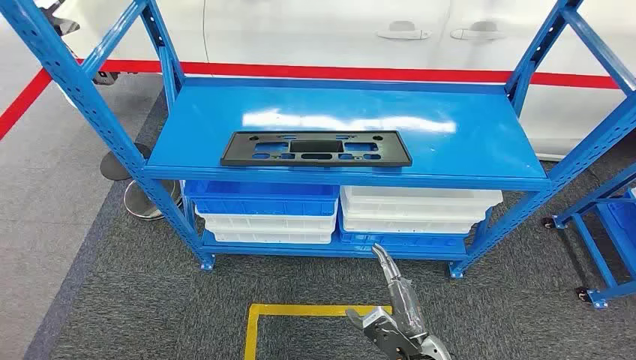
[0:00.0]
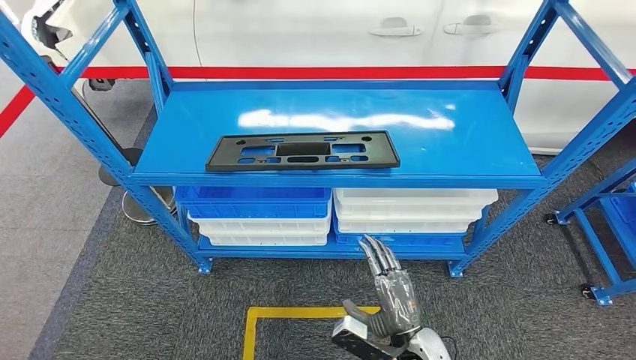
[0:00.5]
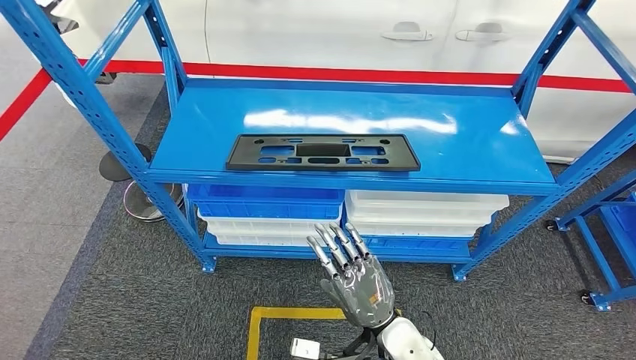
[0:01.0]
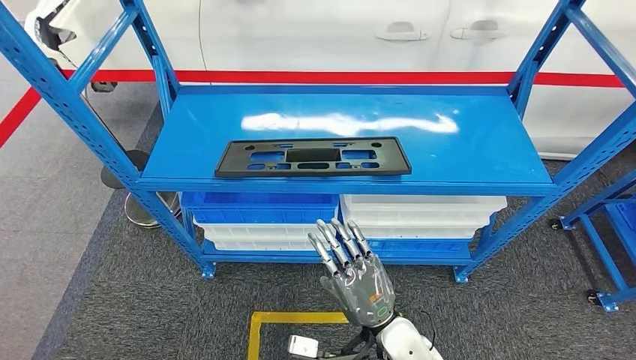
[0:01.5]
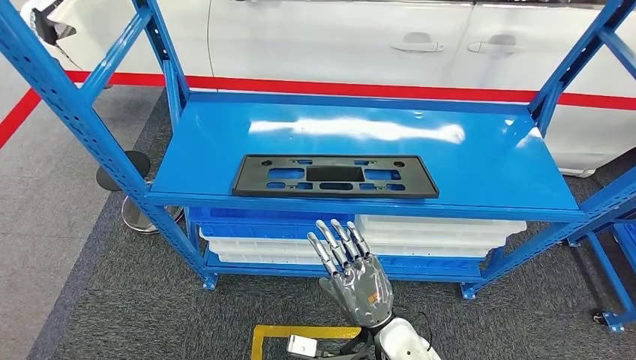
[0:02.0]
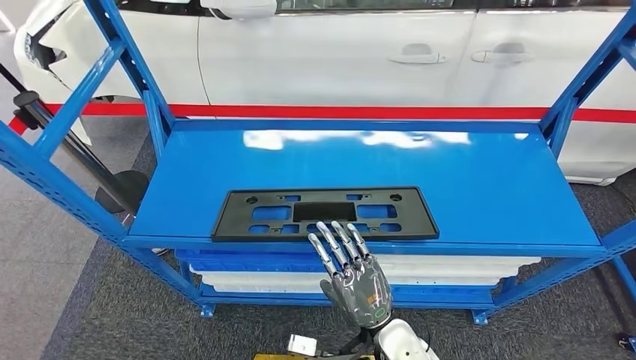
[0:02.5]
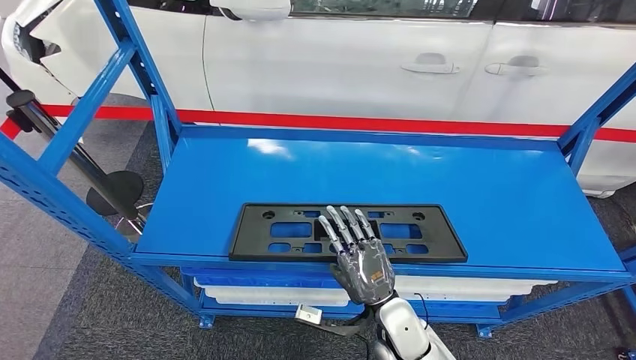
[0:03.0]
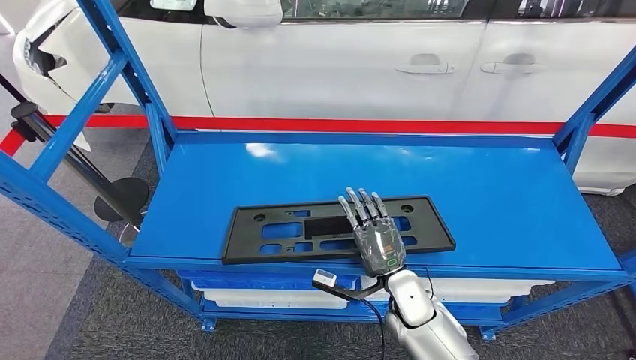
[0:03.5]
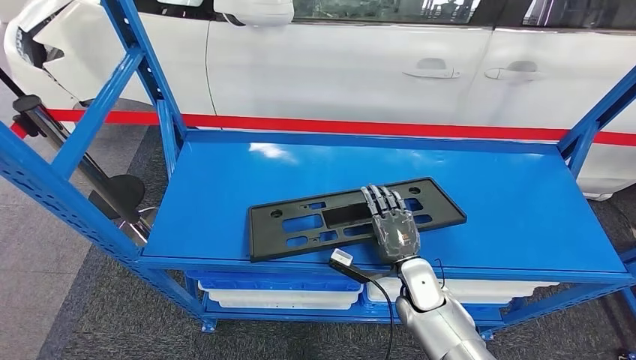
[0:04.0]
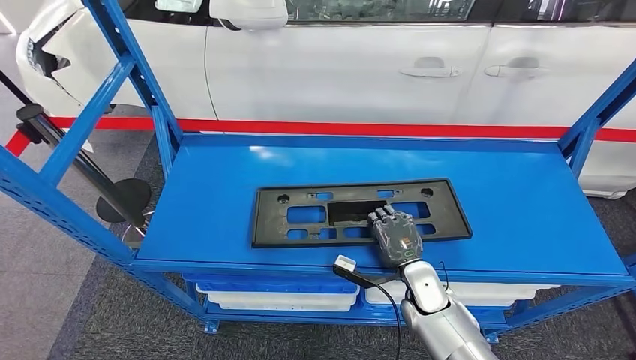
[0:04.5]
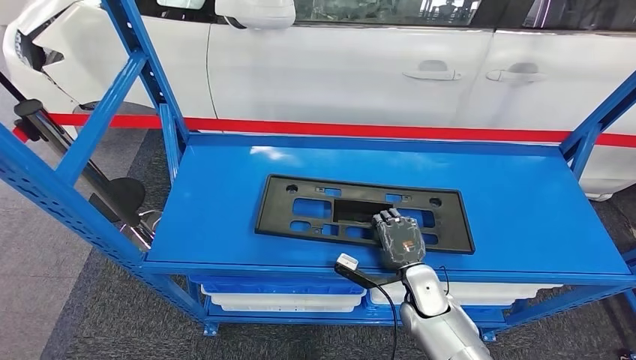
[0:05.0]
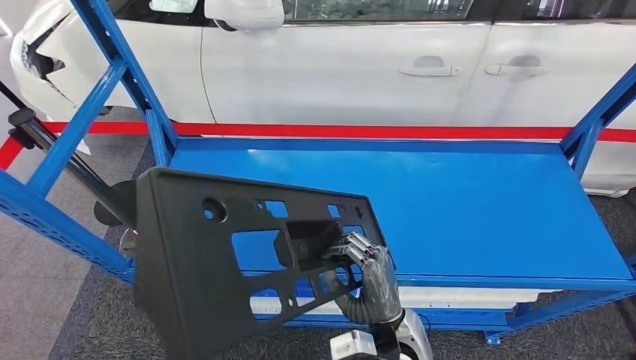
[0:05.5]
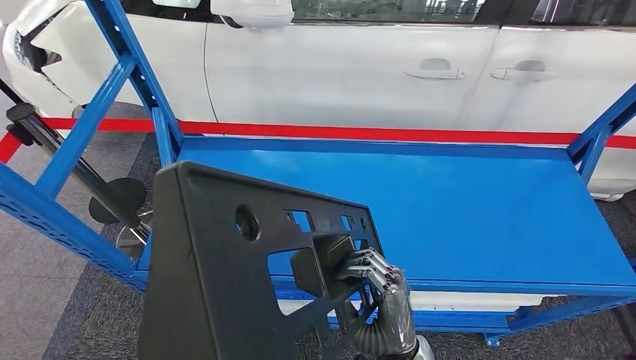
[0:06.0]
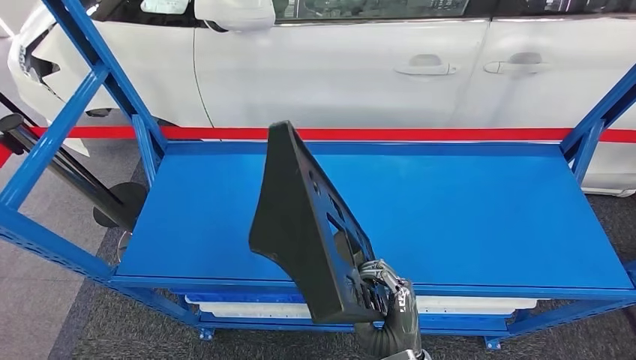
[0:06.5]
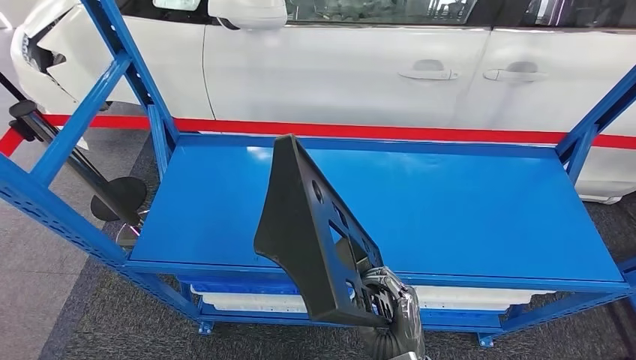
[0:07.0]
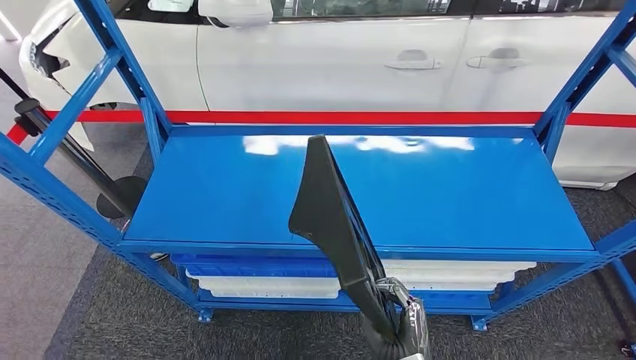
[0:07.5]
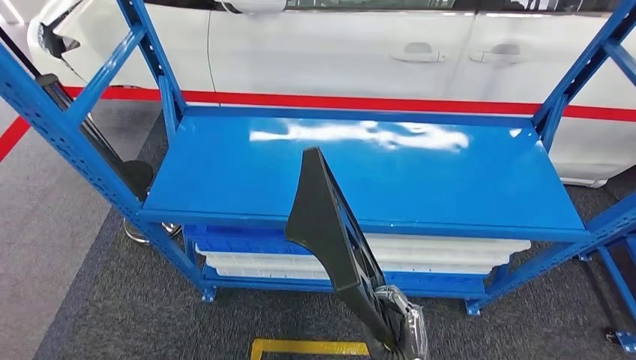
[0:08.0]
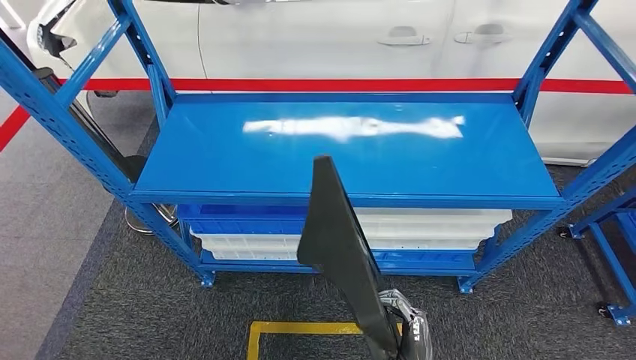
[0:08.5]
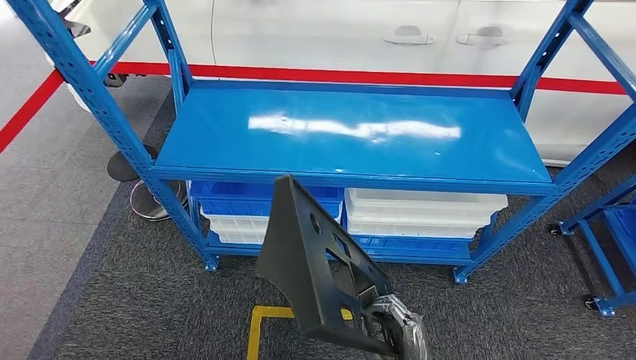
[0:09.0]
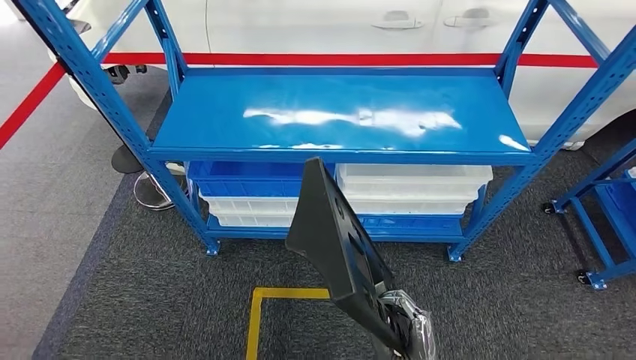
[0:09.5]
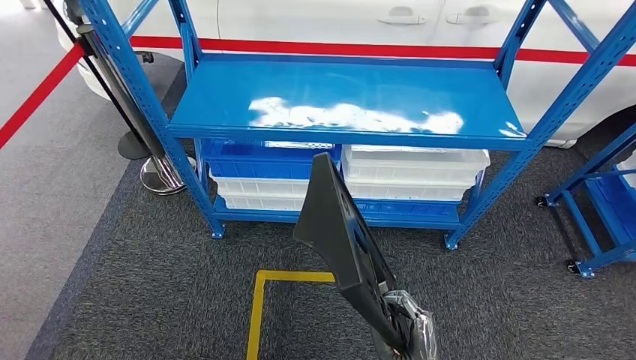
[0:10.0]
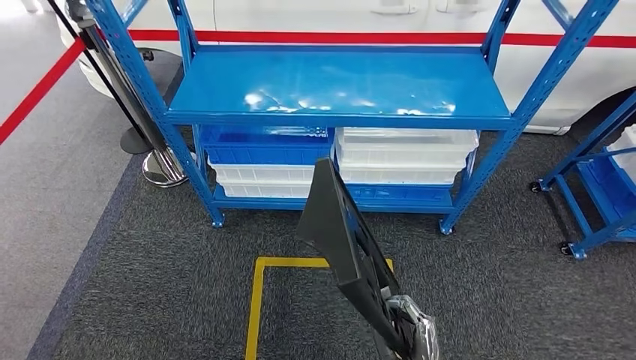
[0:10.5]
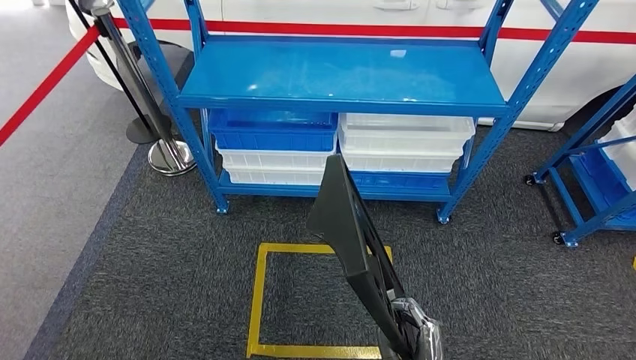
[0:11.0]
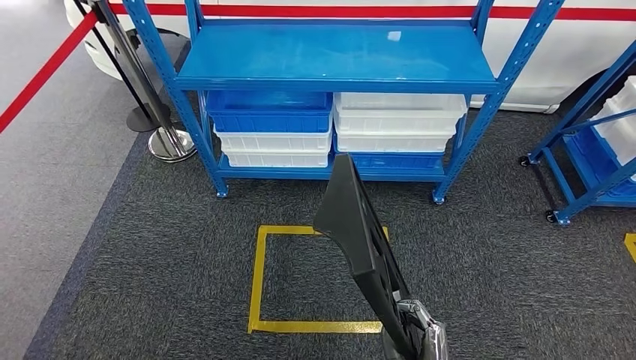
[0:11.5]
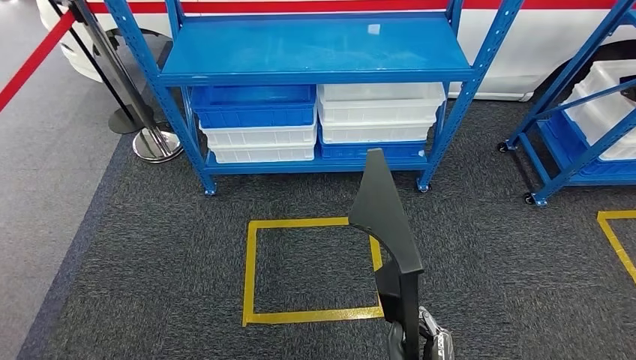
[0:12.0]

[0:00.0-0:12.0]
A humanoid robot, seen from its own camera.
Step, 0:00.0 to 0:08.5: Pick up the large material from the shelf.

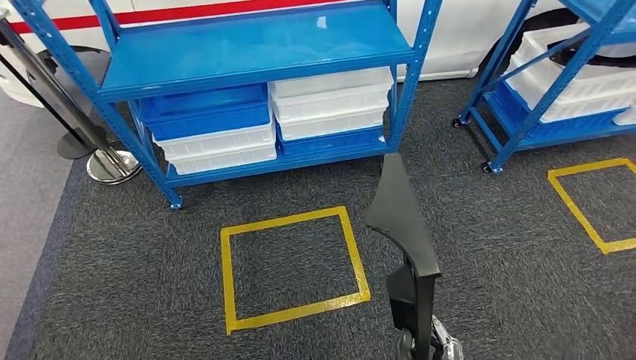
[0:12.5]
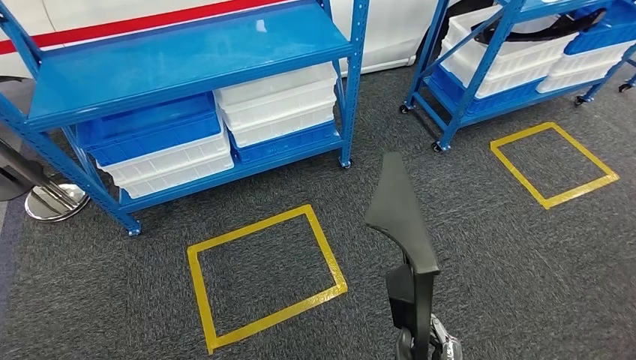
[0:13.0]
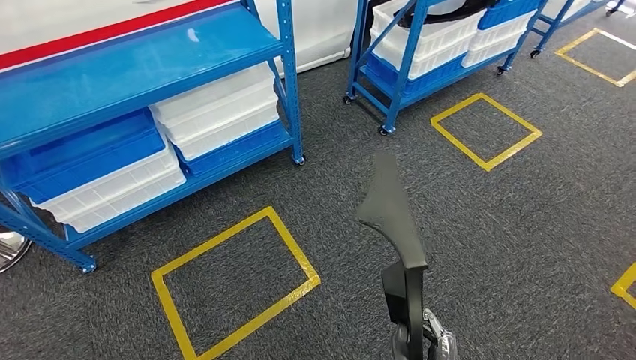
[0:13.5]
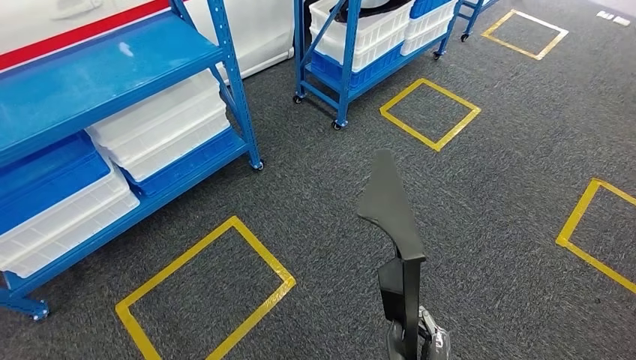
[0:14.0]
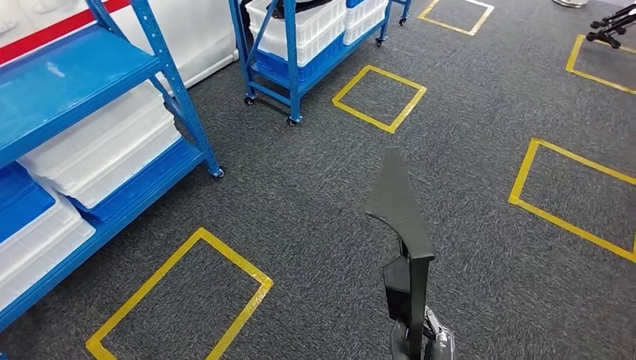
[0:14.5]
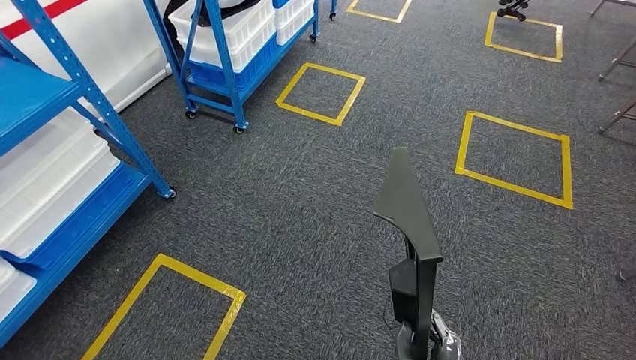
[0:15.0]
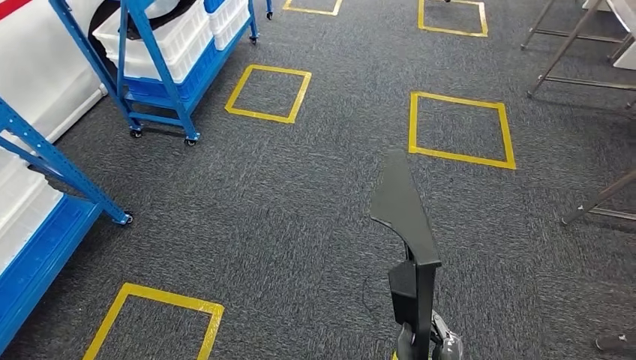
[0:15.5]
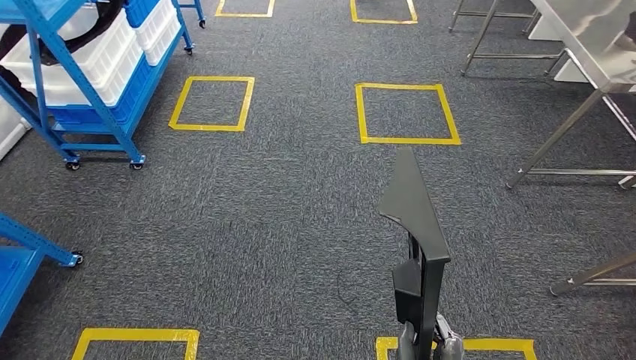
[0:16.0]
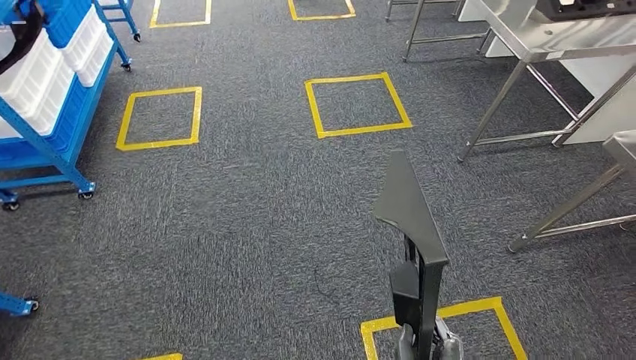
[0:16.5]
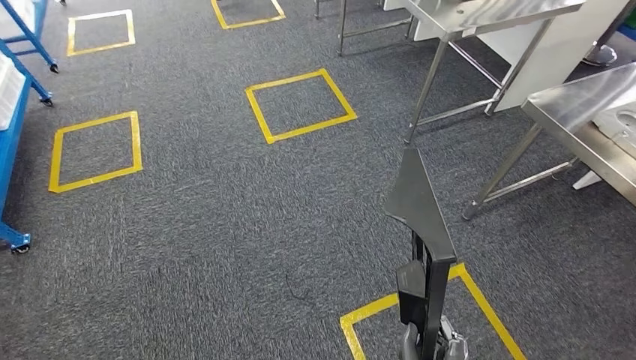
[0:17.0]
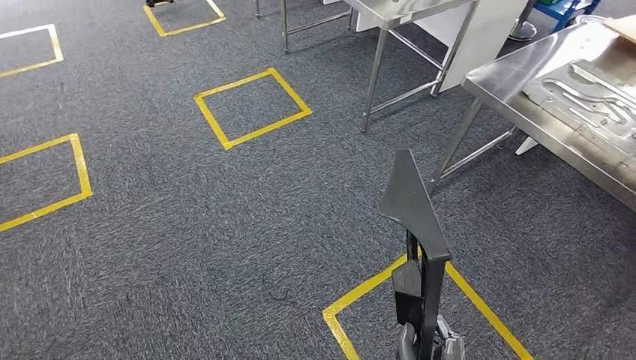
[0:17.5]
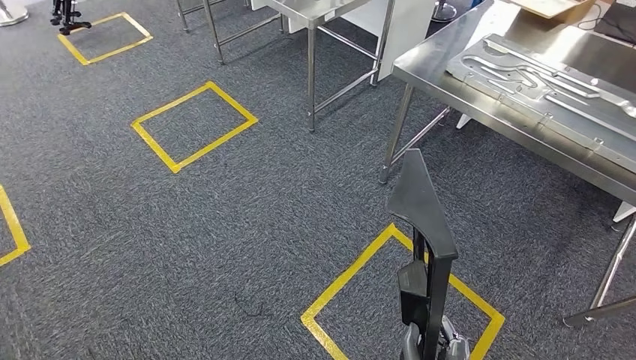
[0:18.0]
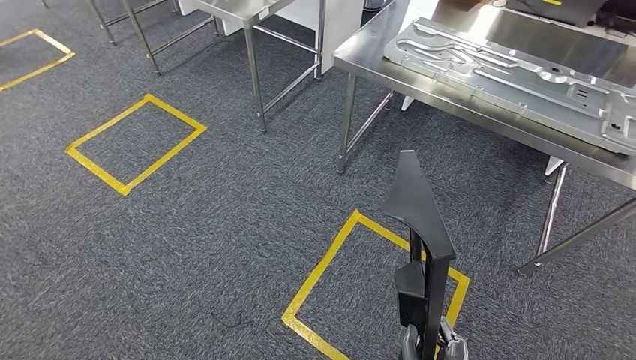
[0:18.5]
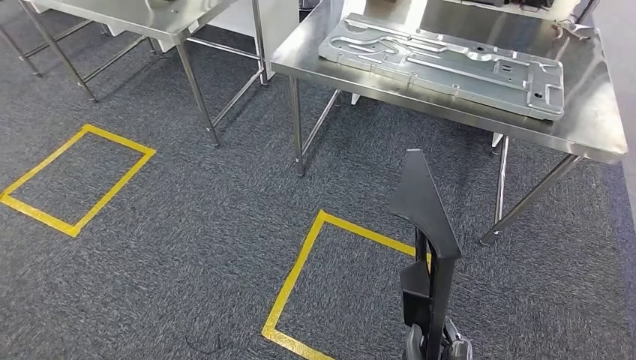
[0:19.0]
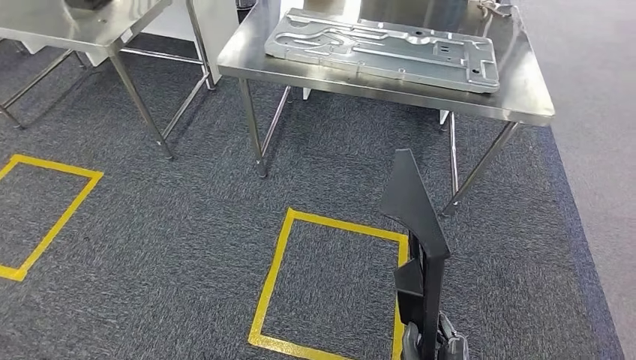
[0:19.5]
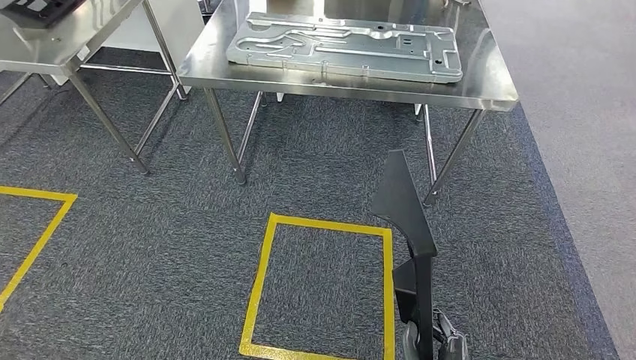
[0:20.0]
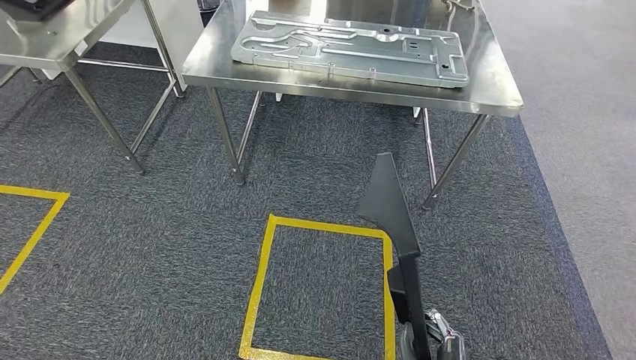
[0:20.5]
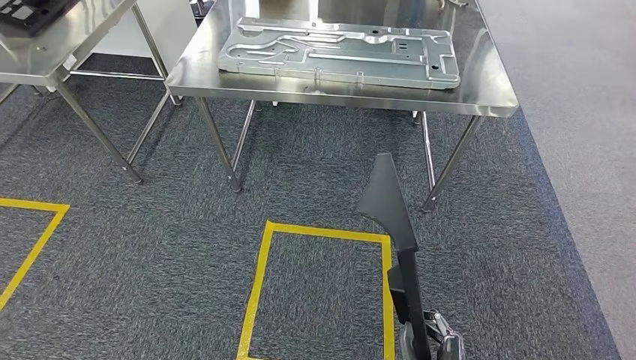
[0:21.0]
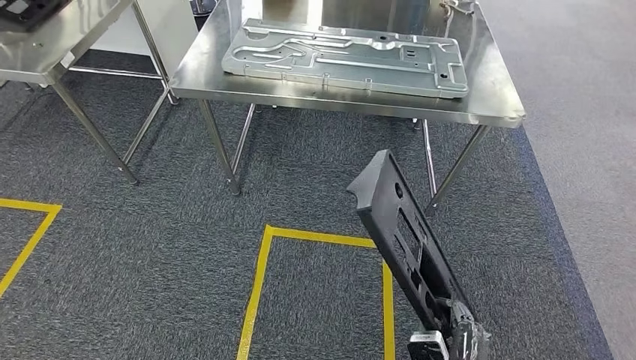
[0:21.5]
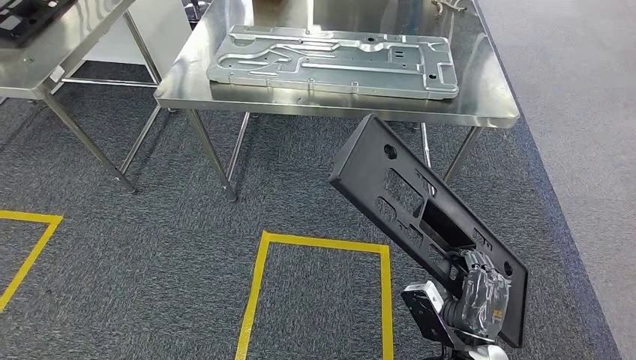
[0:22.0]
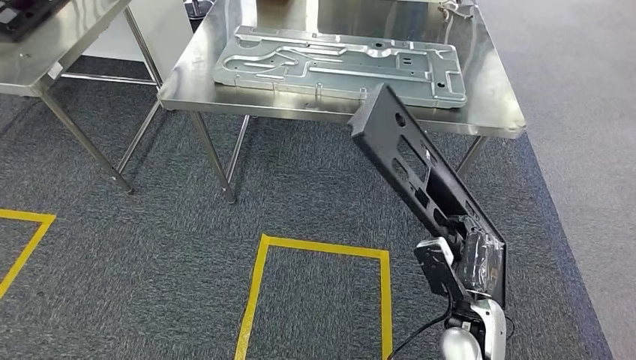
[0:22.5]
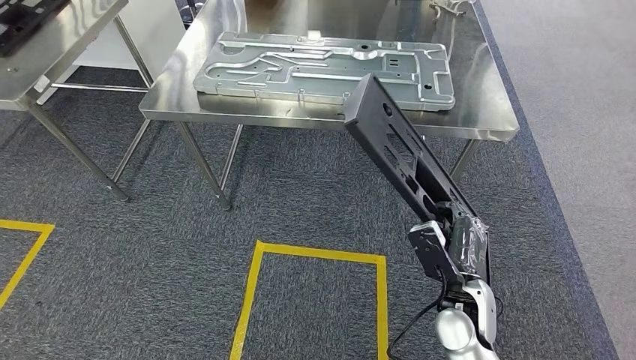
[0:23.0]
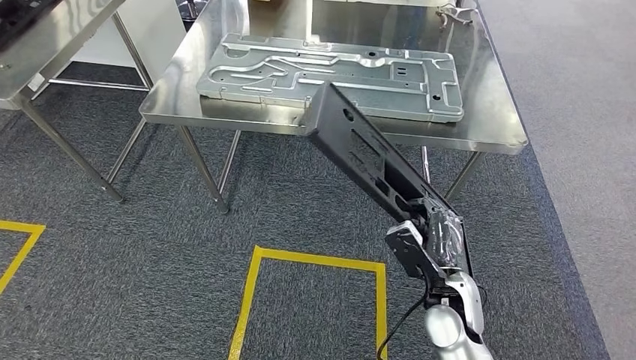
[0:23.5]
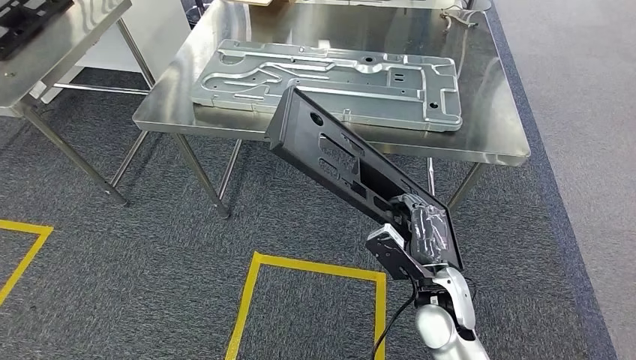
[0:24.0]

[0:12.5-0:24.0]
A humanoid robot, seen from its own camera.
Step, 0:12.5 to 0:24.0: Move the large material to the workbench.
